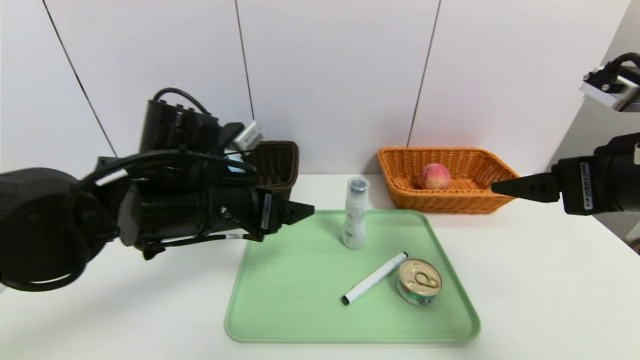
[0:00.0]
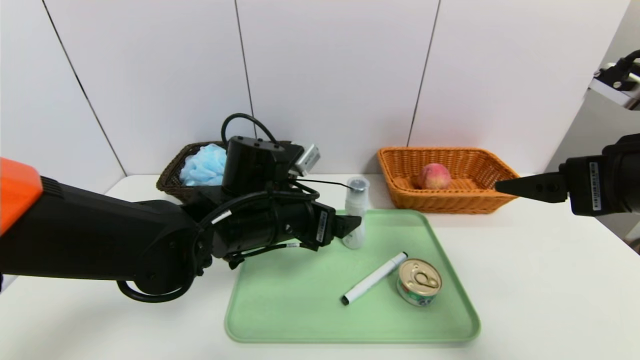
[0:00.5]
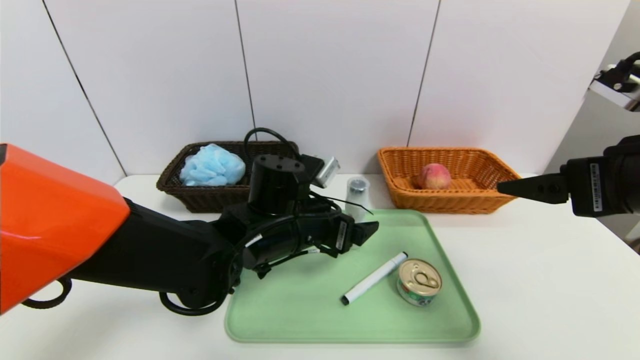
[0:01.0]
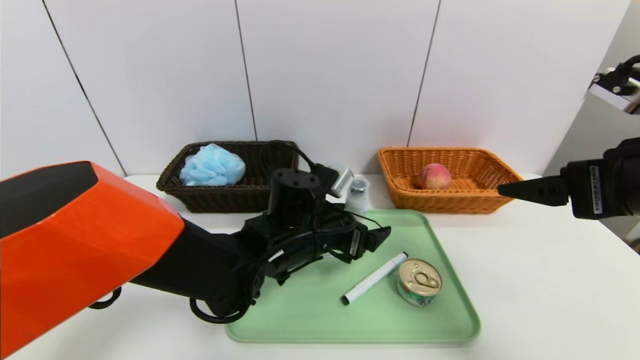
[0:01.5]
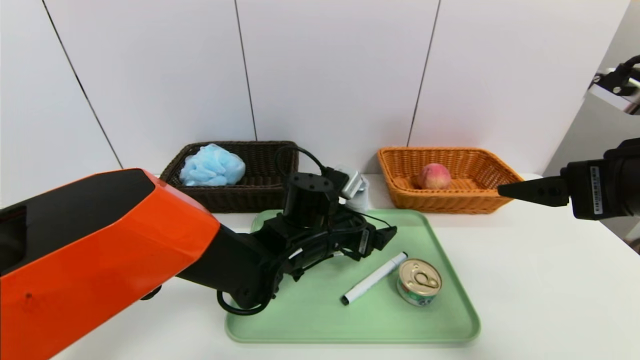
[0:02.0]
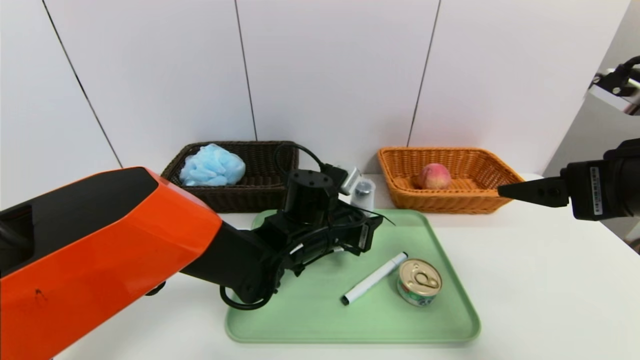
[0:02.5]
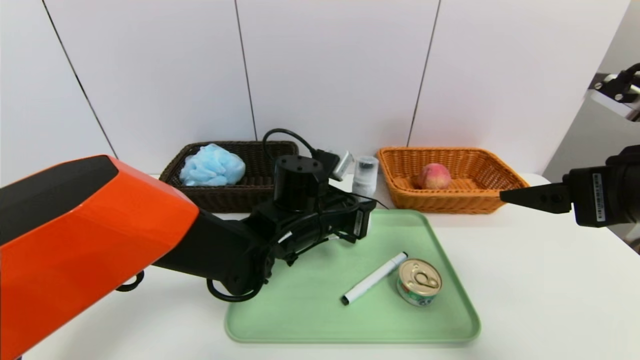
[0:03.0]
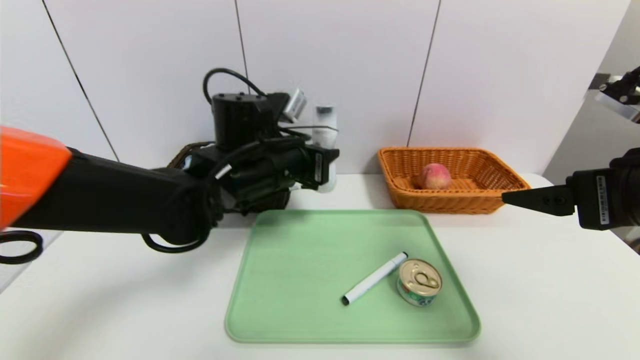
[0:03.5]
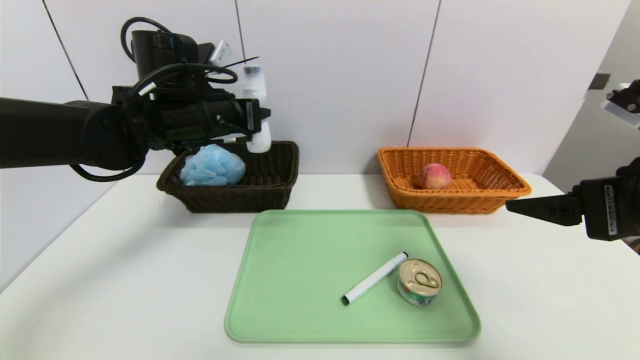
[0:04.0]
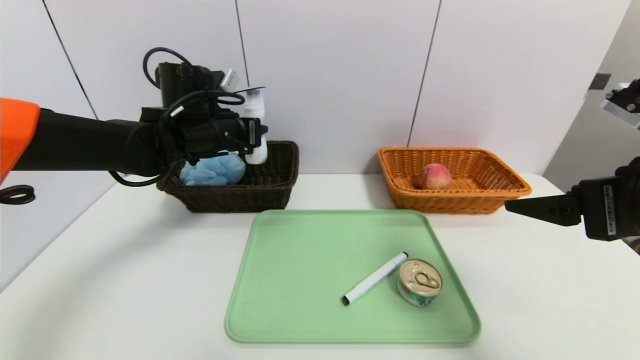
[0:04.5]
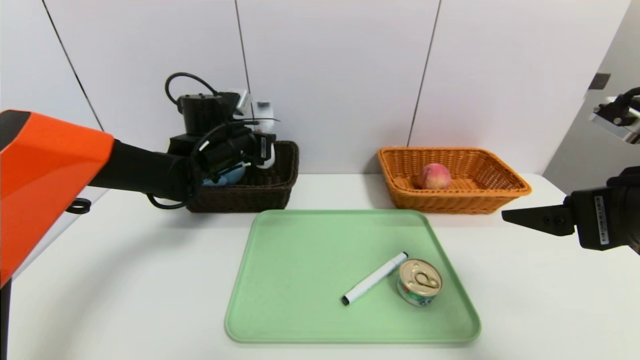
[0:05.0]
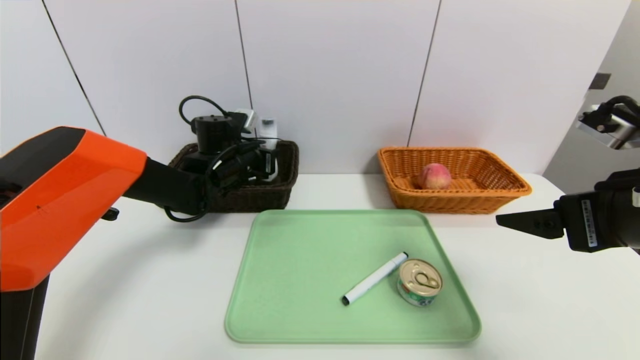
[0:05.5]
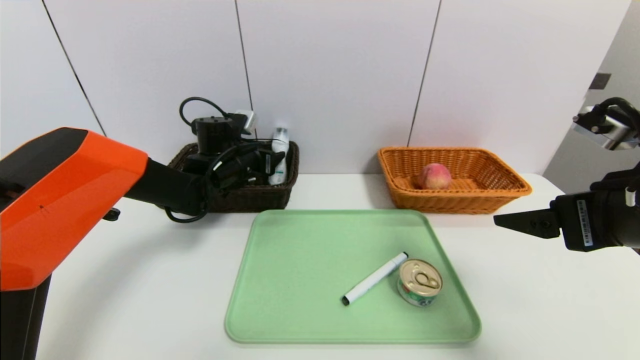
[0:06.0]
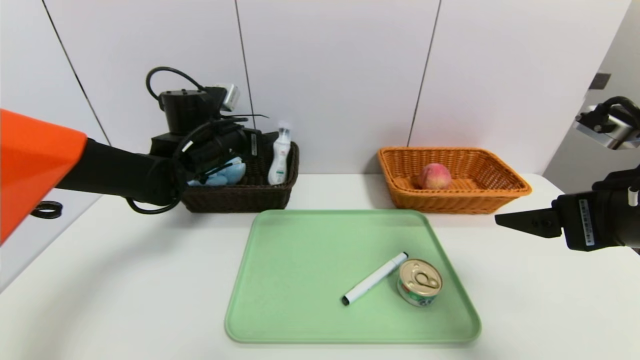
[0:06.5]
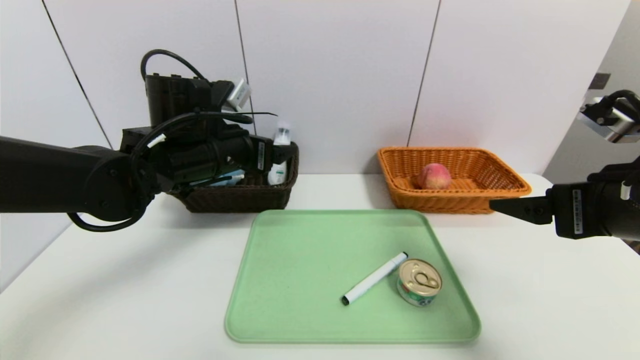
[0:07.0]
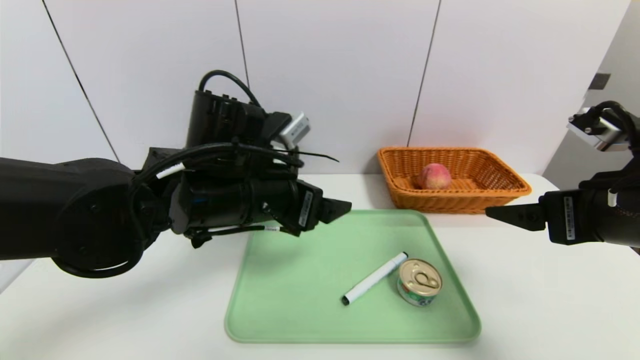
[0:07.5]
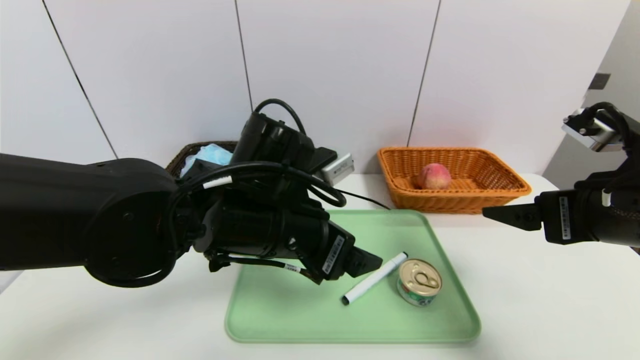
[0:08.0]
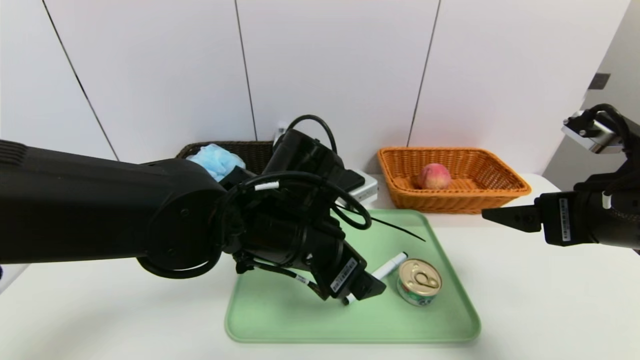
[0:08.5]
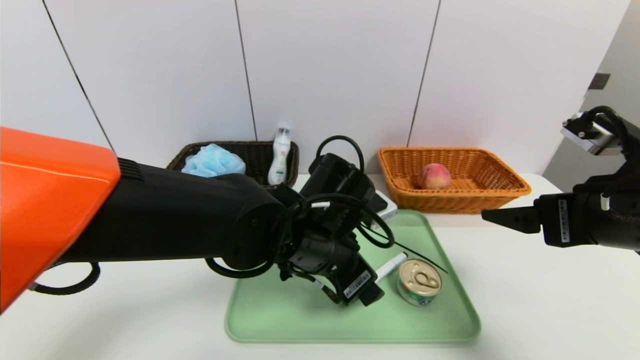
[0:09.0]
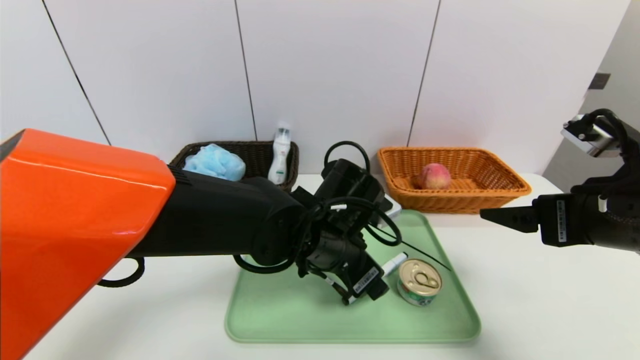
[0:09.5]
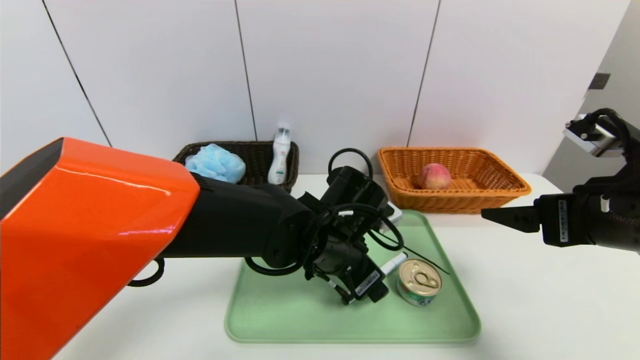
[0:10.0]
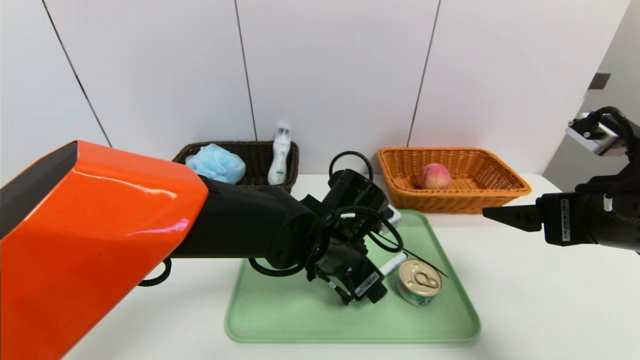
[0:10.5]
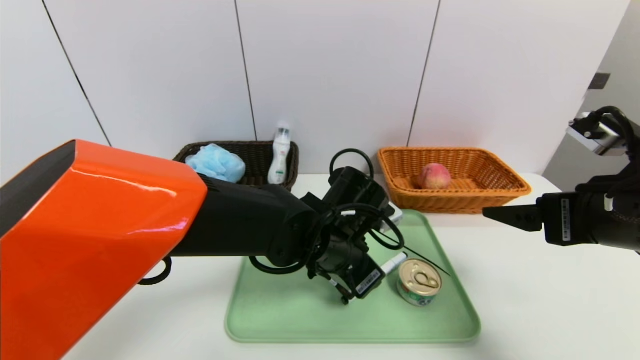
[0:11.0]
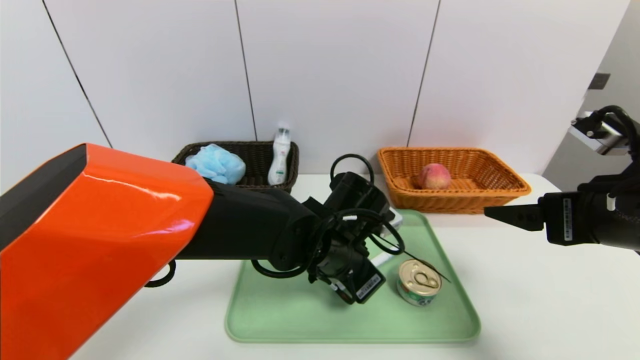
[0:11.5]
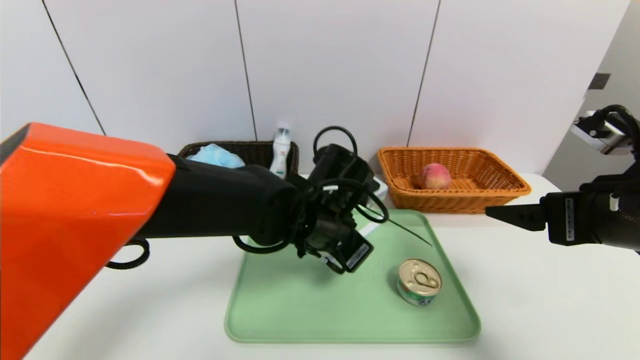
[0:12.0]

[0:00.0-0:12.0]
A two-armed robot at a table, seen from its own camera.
Task of the whole recording: place the food in the right basket with the right gripper, and place the non food items in the left basket with the left gripper.
Step, 0:00.0 to 0:06.0: Grasp the washing liquid and put it in the left basket.
0:00.0 to 0:02.0: The left gripper moves to the right, downward and forward, some 15 cm.
0:02.0 to 0:04.0: The left gripper goes about 20 cm to the left and upward, and closes up.
0:04.0 to 0:06.0: The left gripper shifts about 15 cm downward and forward, and opens up.
0:06.0 to 0:08.0: The left gripper moves backward and to the right, approximately 25 cm.
0:08.0 to 0:10.0: The left gripper shifts some 10 cm downward and to the right.
0:10.0 to 0:12.0: The left gripper closes up.

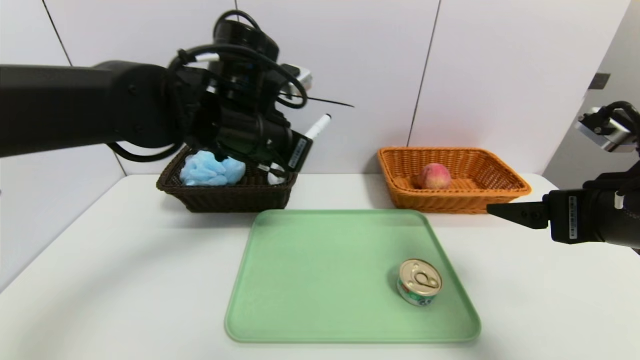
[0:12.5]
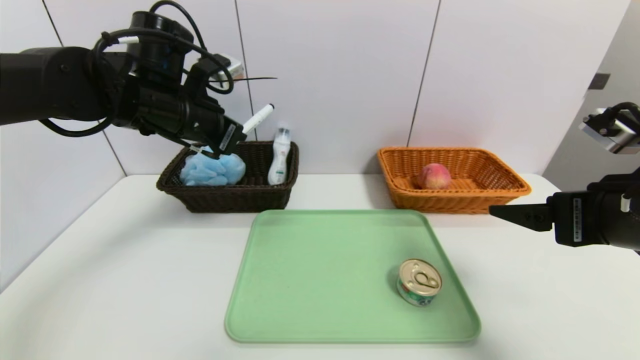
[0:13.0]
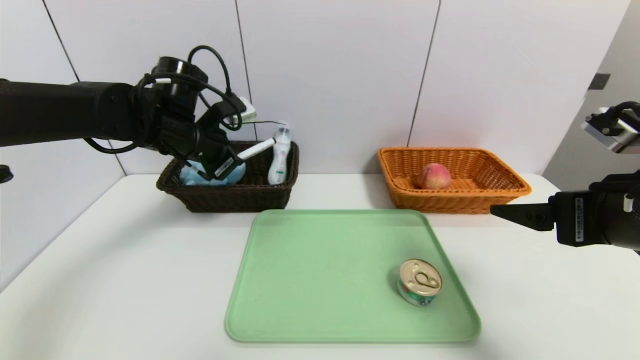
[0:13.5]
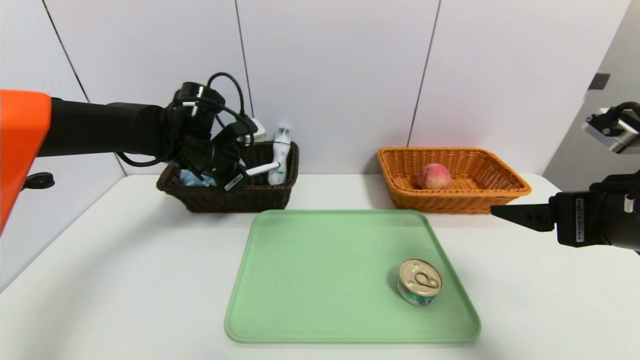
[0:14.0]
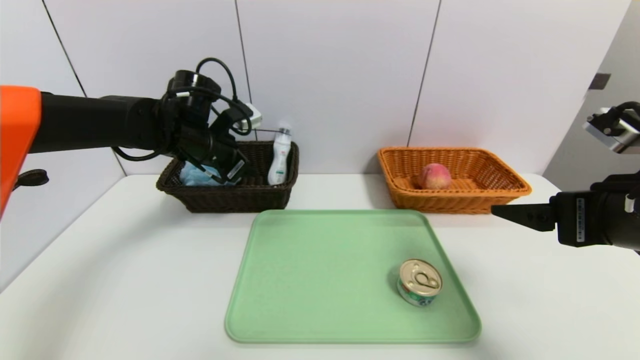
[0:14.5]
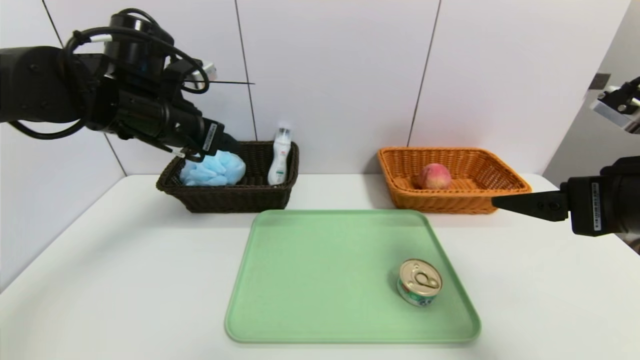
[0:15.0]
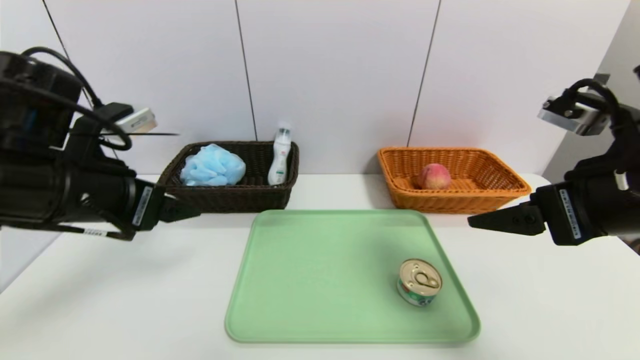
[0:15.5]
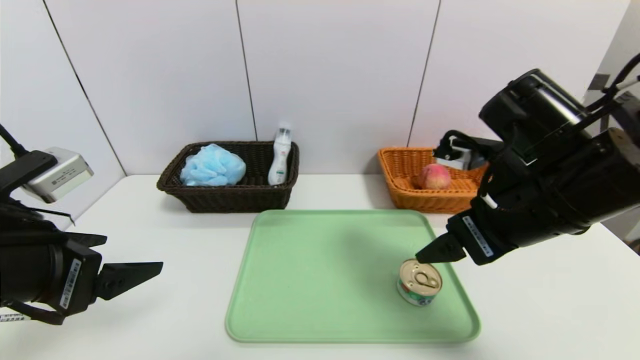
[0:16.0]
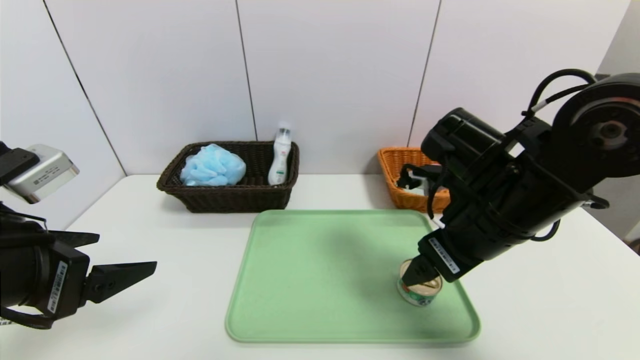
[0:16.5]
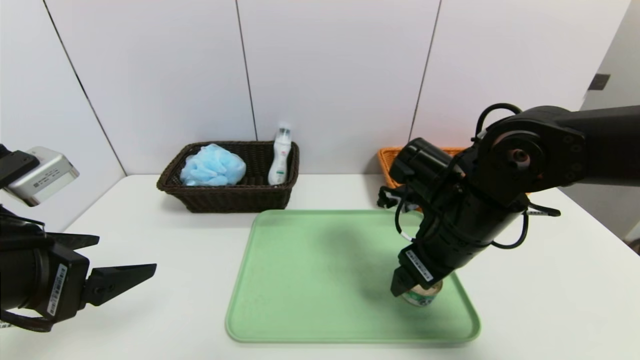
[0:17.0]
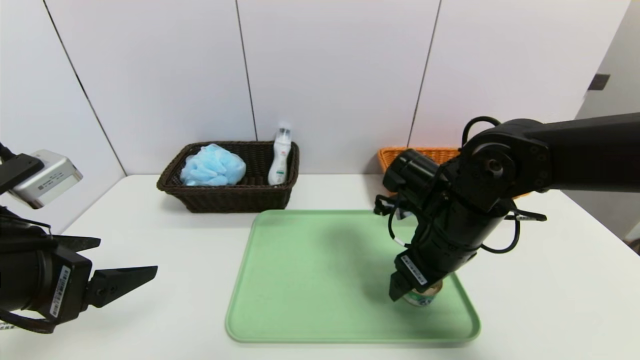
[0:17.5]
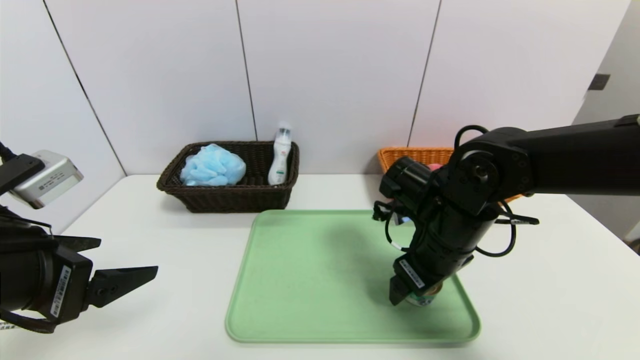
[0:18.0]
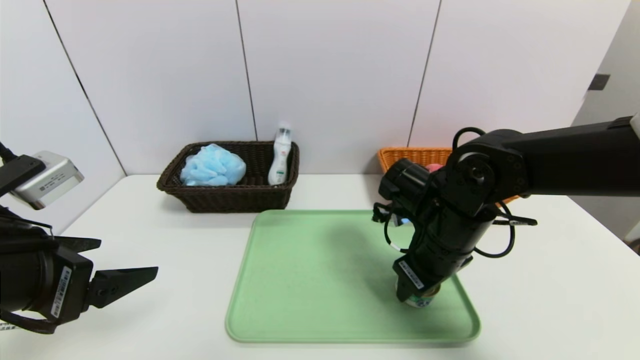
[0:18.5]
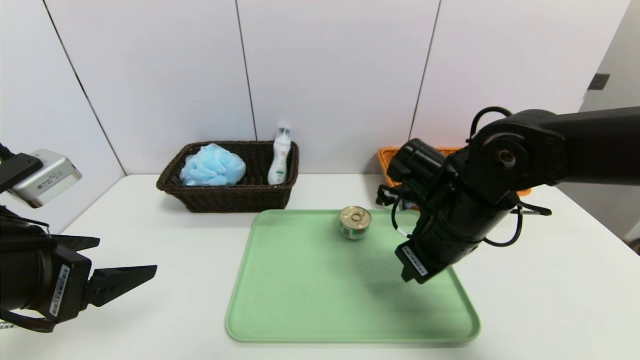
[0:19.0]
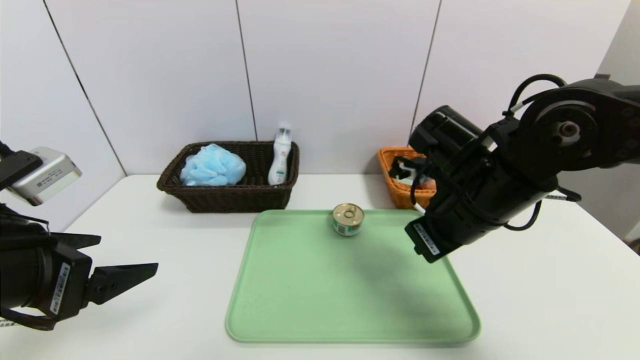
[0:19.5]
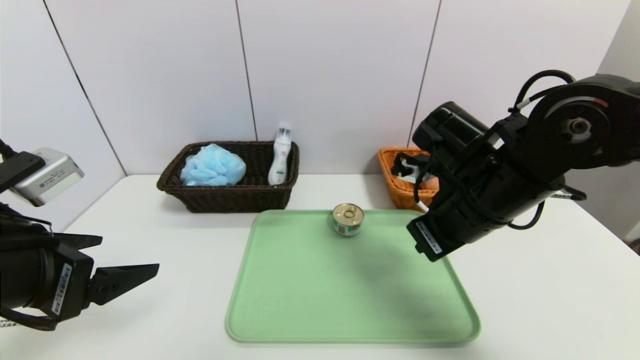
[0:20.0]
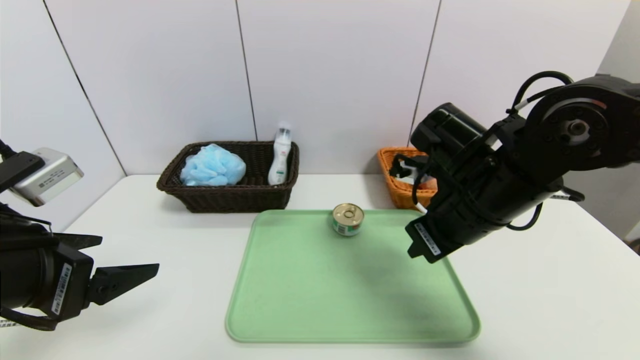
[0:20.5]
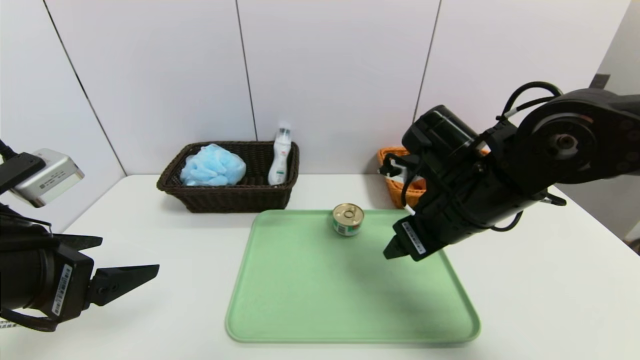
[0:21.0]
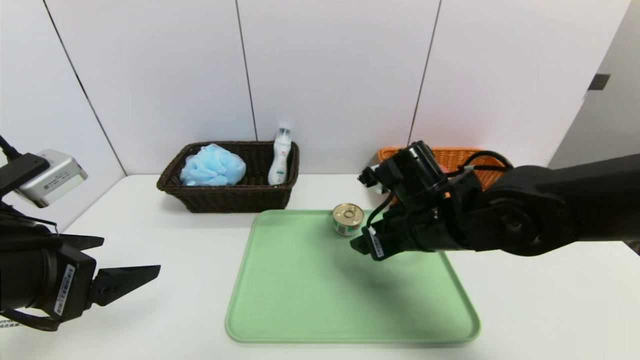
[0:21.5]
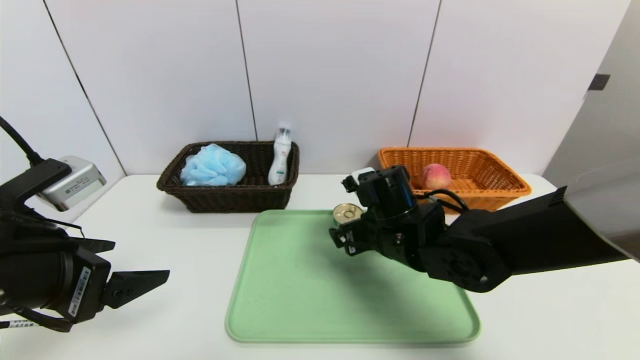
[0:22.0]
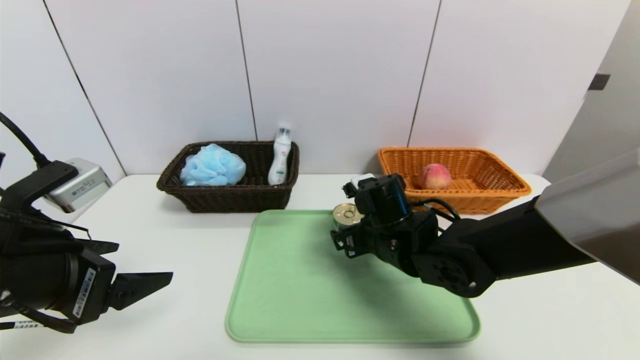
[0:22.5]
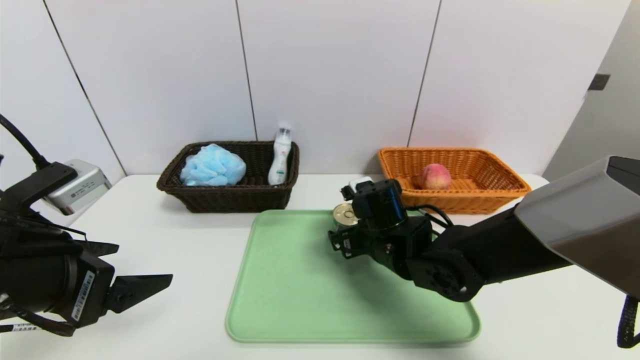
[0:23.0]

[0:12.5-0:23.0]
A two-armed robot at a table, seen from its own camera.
Task of the whole recording: place the food in the right basket with the right gripper, and place the non food items in the left basket with the left gripper.
Step, 0:12.5 to 0:14.5: Grasp the black marker and put it in the left basket.
0:12.5 to 0:14.5: The left gripper moves to the left, forward and downward, some 15 cm, and opens up.
0:14.5 to 0:16.5: The left gripper is displaced backward by approximately 25 cm, and opens; the right gripper travels to the left and forward by roughly 15 cm.
0:16.5 to 0:19.0: The right gripper closes its fingers.
0:19.0 to 0:21.0: The right gripper opens its fingers.
0:21.0 to 0:23.0: The right gripper goes about 15 cm downward and to the left.
